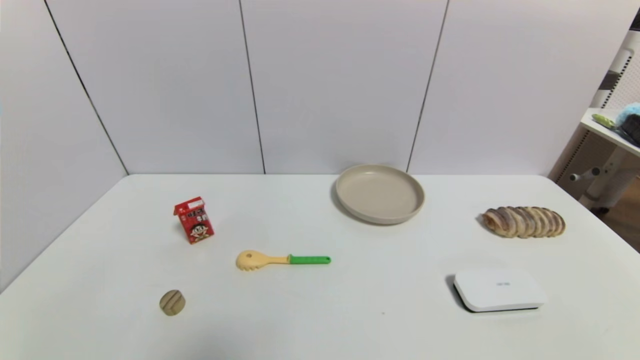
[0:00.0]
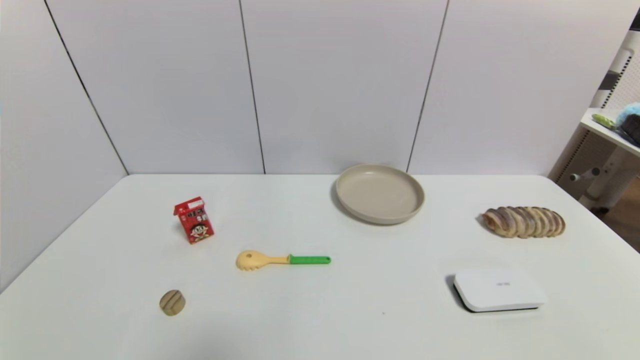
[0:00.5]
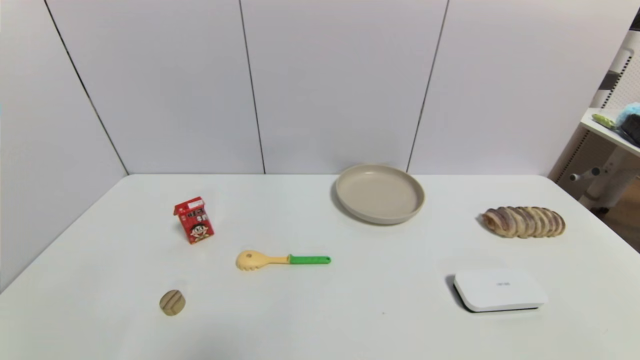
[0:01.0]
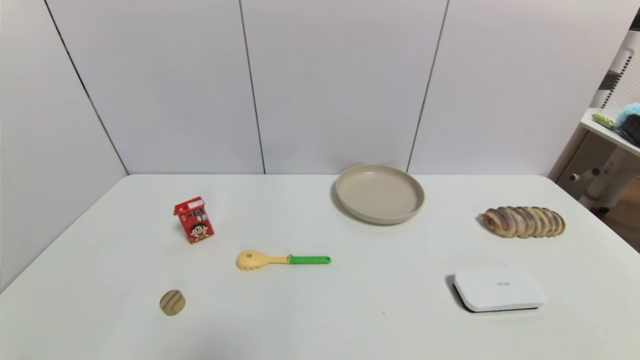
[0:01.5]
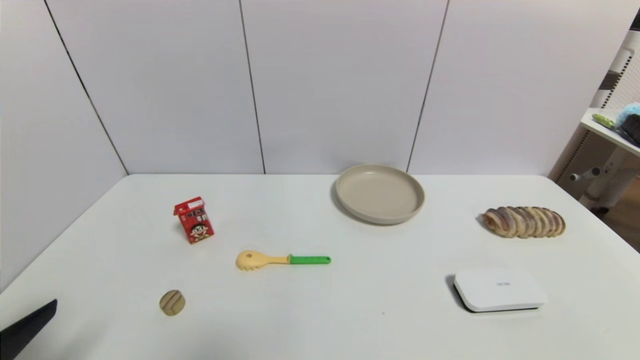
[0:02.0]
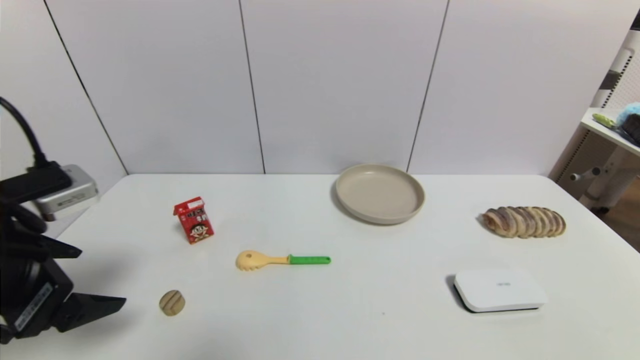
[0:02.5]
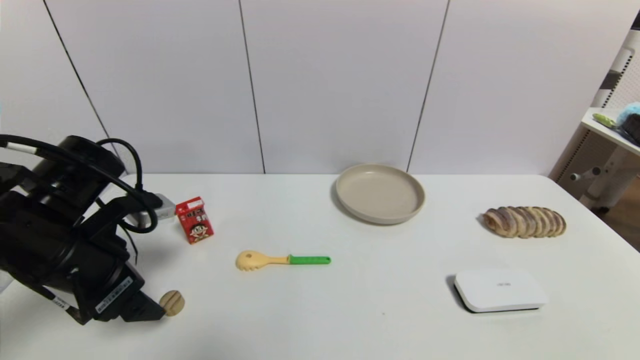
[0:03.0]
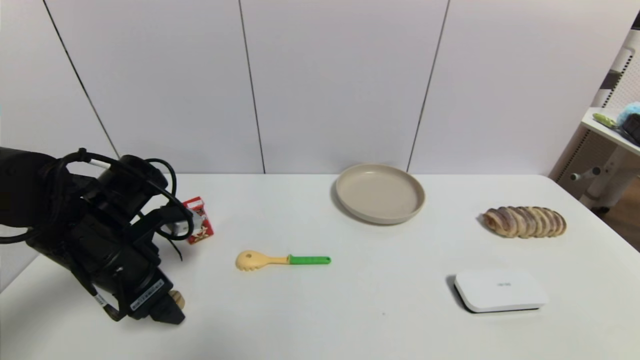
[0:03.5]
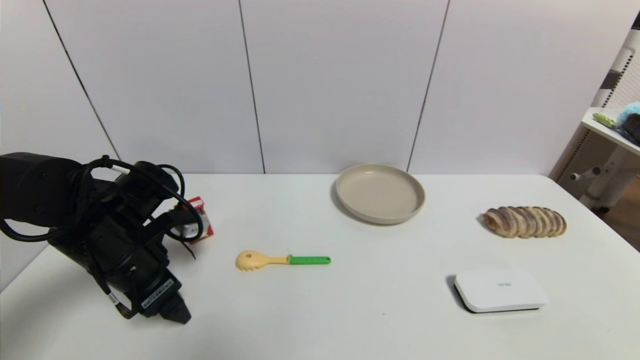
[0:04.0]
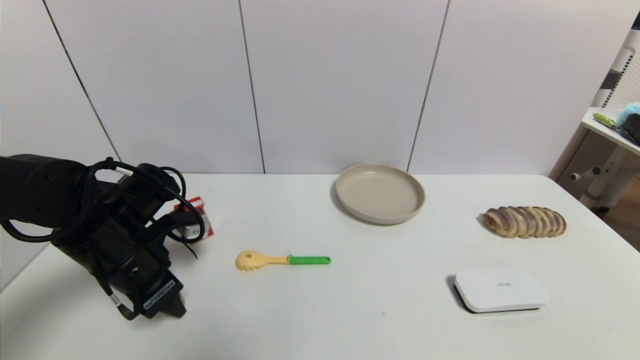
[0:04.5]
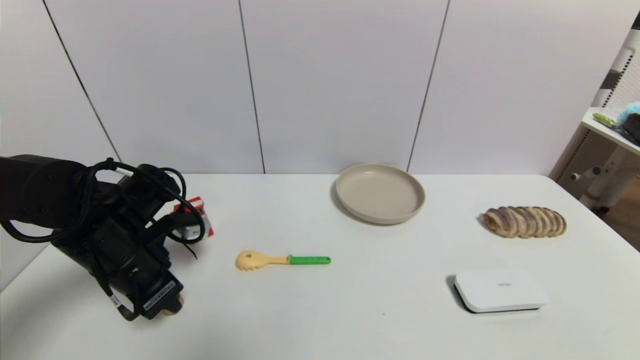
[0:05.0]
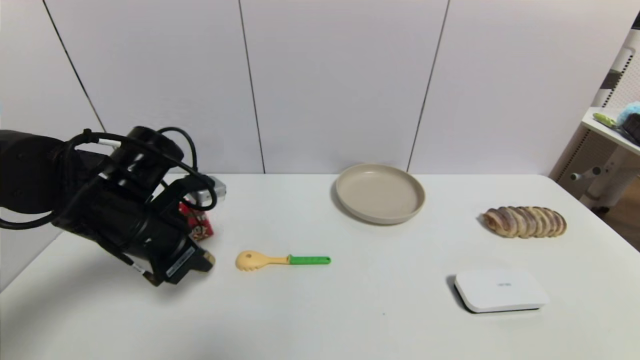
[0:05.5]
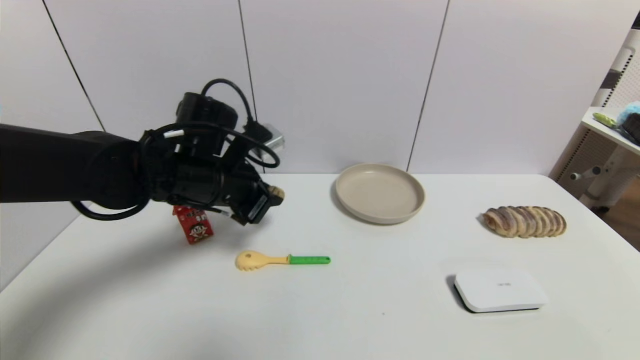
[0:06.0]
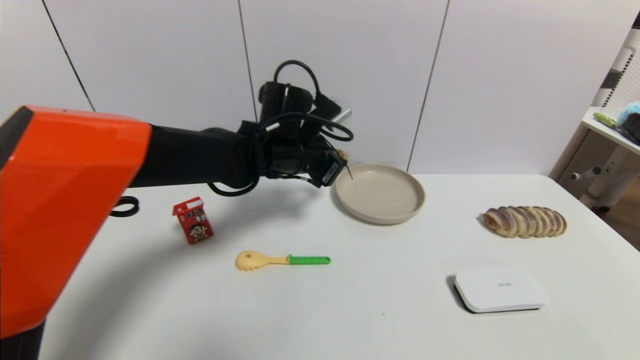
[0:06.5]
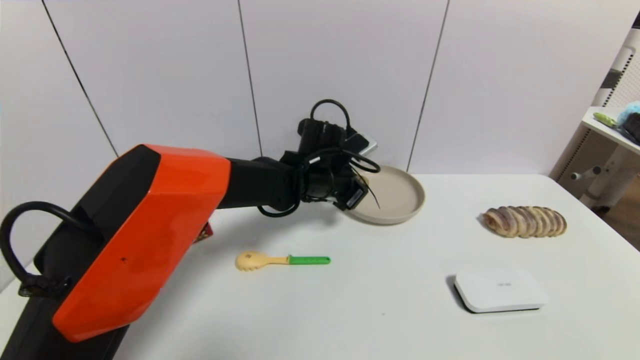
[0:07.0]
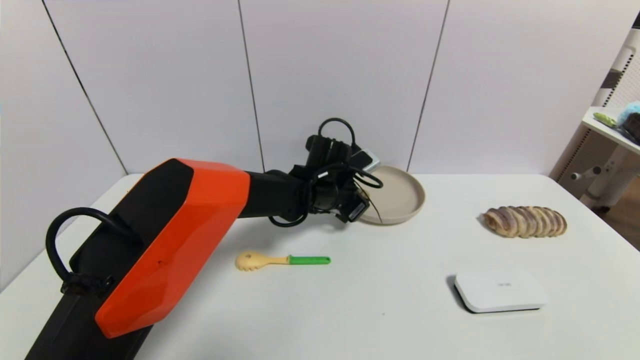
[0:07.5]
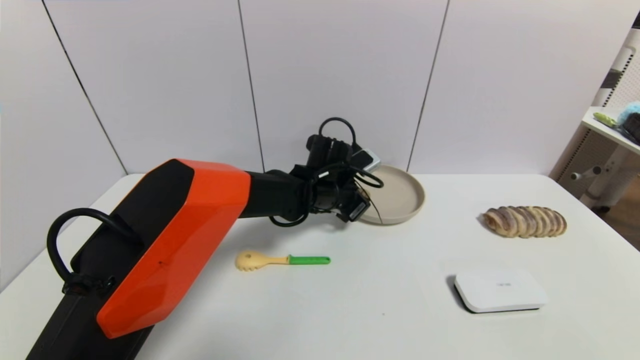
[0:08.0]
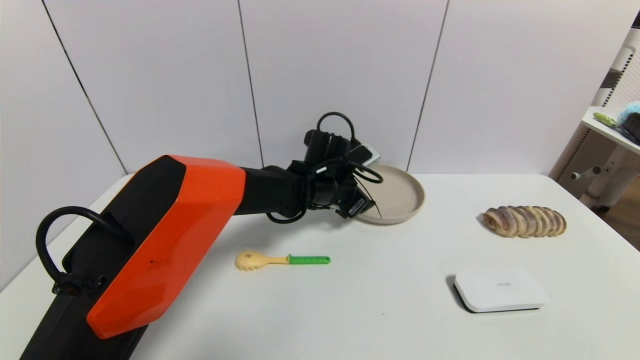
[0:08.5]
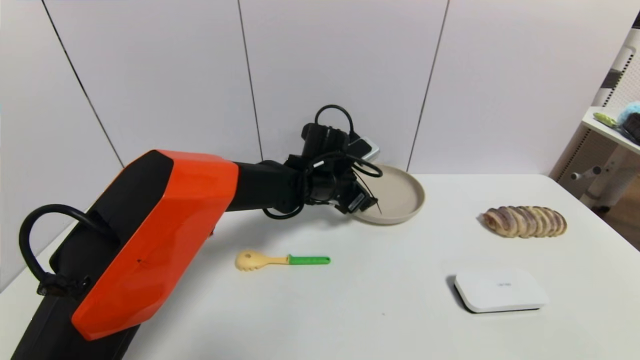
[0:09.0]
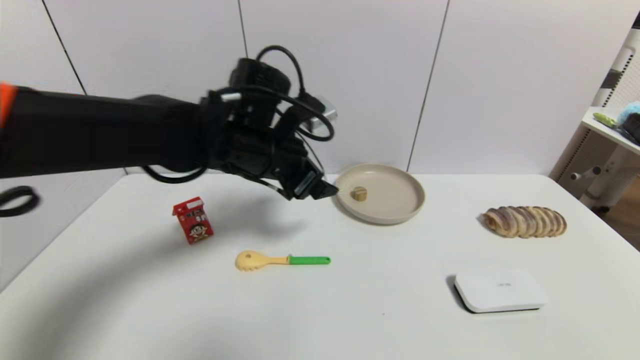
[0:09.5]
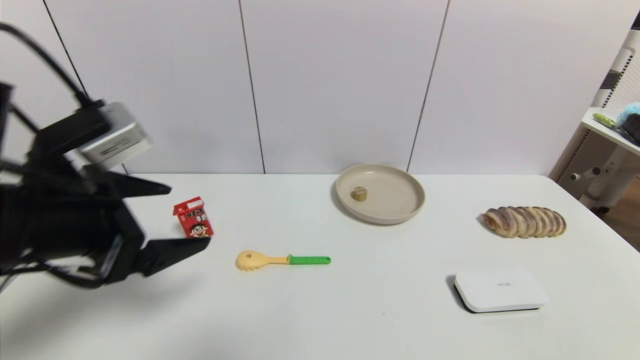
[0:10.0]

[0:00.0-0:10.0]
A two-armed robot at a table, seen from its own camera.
Task of the whole recording: use a gripper to pick the target object and place on the brown plate.
Step, 0:00.0 to 0:05.0: Grasp the round wooden block with the left gripper.
Step, 0:05.5 to 0:08.5: Place the round wooden block on the brown plate with the left gripper.
0:00.0 to 0:02.0: The left gripper travels upward and forward by some 15 cm.
0:02.0 to 0:04.0: The left gripper shifts some 20 cm forward.
0:04.0 to 0:06.0: The left gripper travels to the right, forward and upward by approximately 15 cm, and closes up.
0:06.0 to 0:08.0: The left gripper goes about 20 cm to the right, forward and downward.
0:08.0 to 0:10.0: The left gripper heads backward, to the left and upward, covering some 40 cm, and opens.
